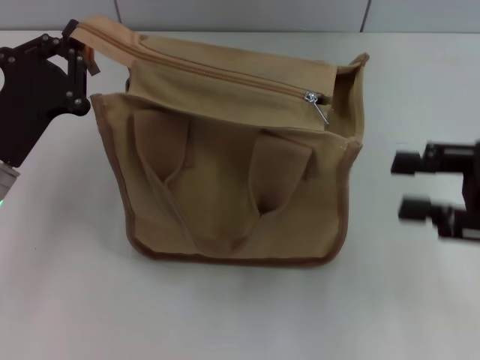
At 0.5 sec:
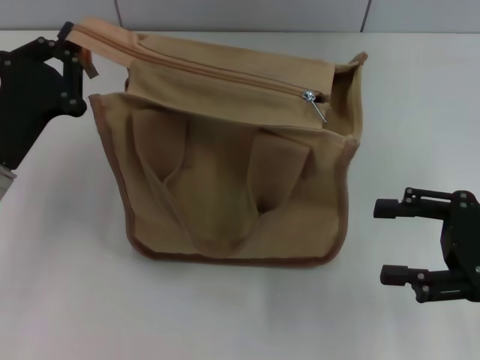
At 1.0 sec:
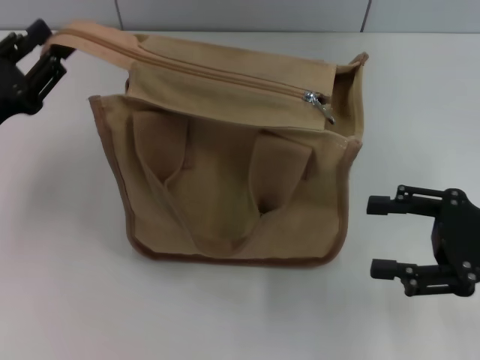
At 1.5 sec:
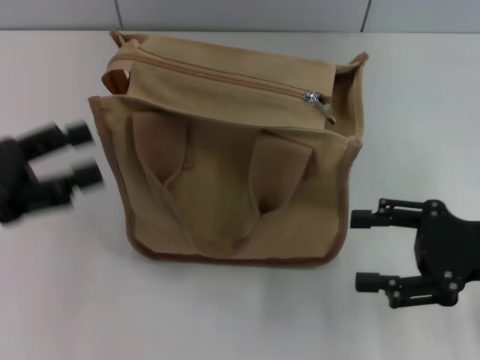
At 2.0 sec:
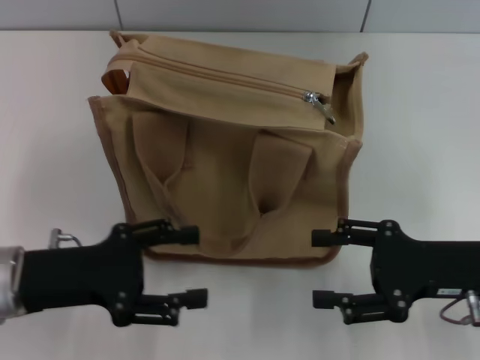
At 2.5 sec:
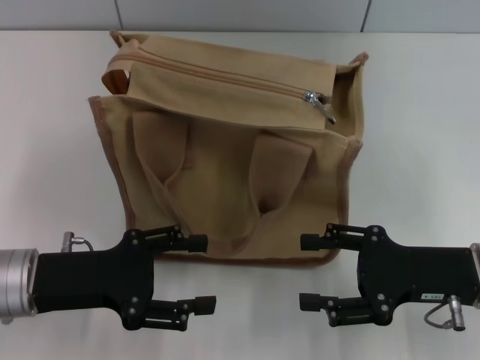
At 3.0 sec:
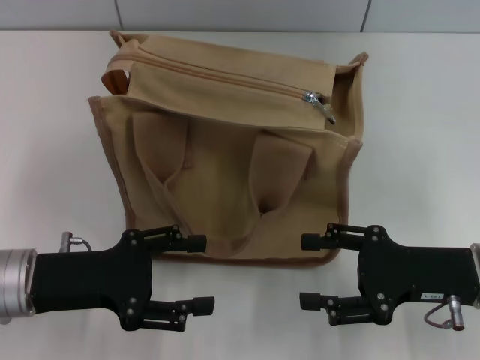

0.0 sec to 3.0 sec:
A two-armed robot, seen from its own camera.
Step, 0.0 sec to 1.0 sec: Grab the zipper with your left hand.
0.0 sec to 1.5 sec: The right gripper ends up some 5 cm from where it was, and opens its fingers, while the left gripper shifts some 5 cm to the left, and opens its fingers.
1.5 sec to 3.0 sec: The left gripper moves to the right and downward, roughly 10 cm. The right gripper moves about 5 cm.
